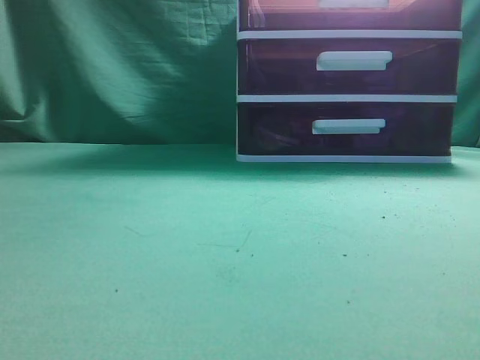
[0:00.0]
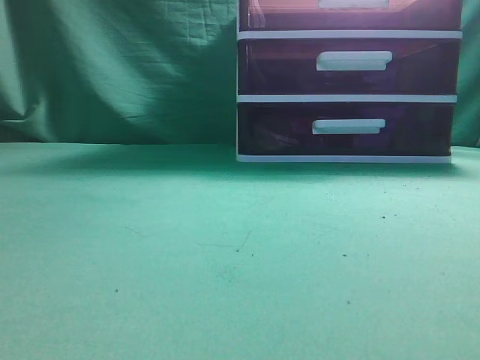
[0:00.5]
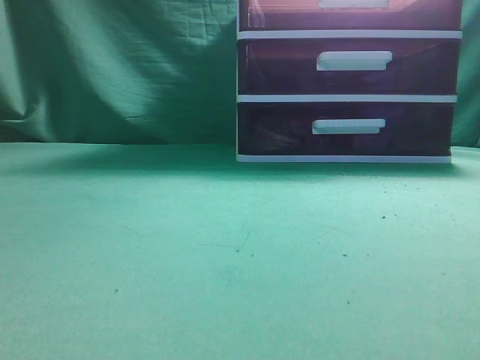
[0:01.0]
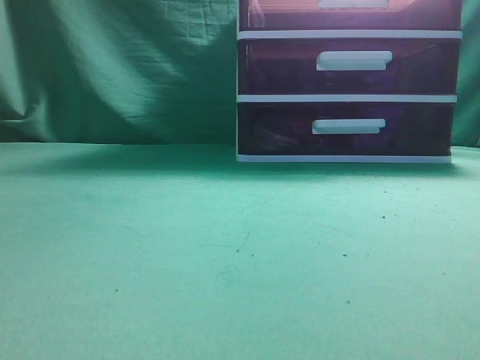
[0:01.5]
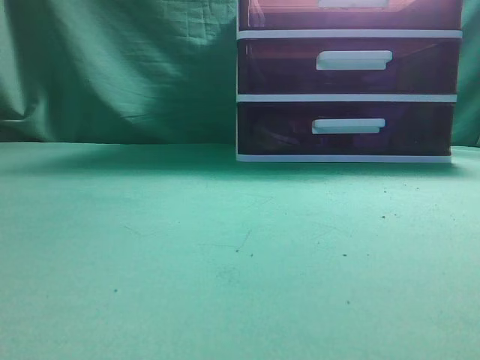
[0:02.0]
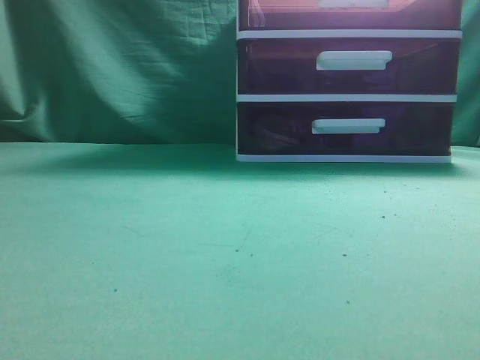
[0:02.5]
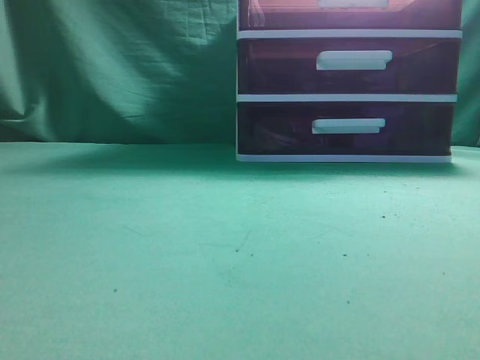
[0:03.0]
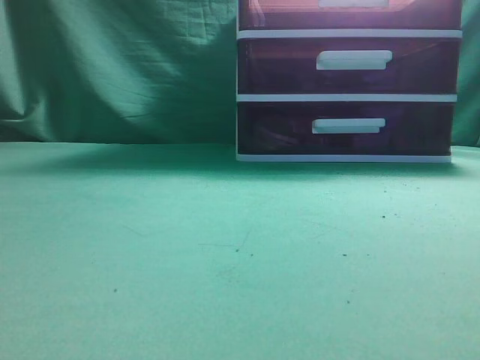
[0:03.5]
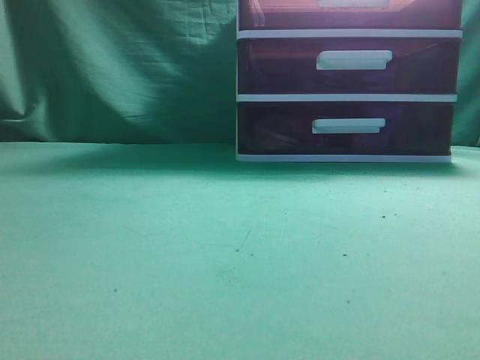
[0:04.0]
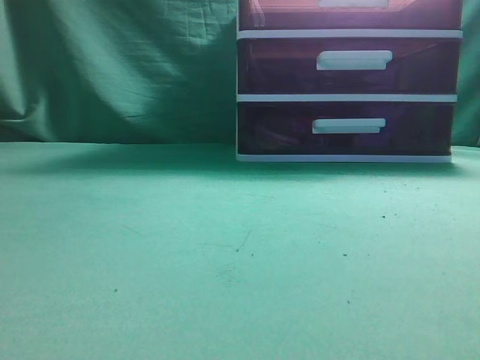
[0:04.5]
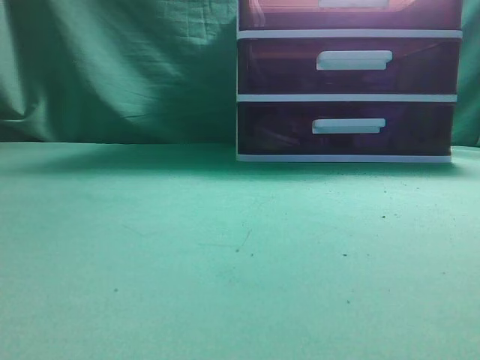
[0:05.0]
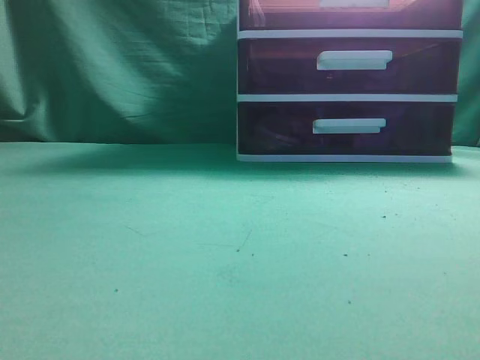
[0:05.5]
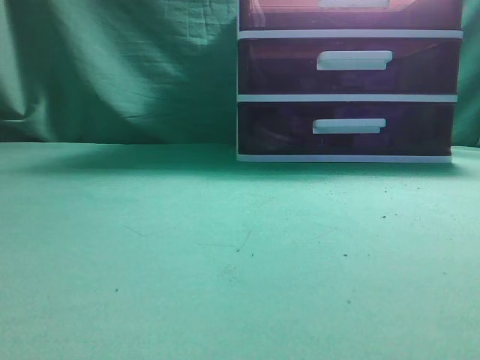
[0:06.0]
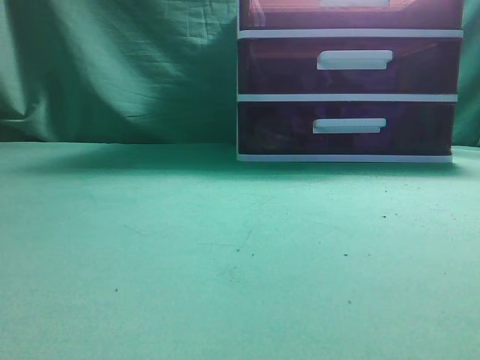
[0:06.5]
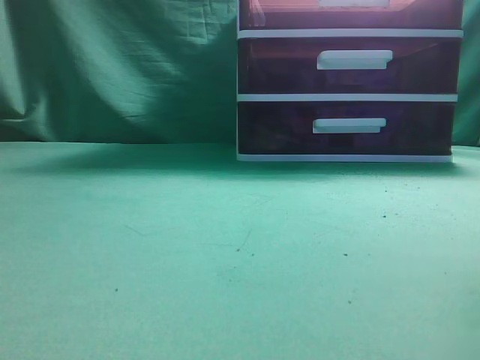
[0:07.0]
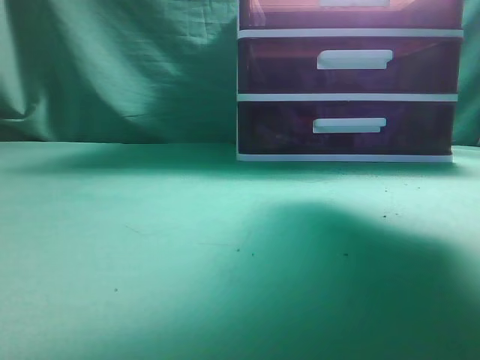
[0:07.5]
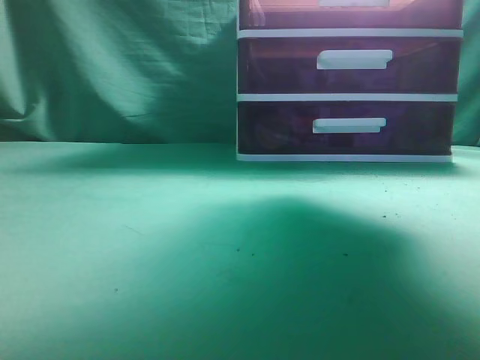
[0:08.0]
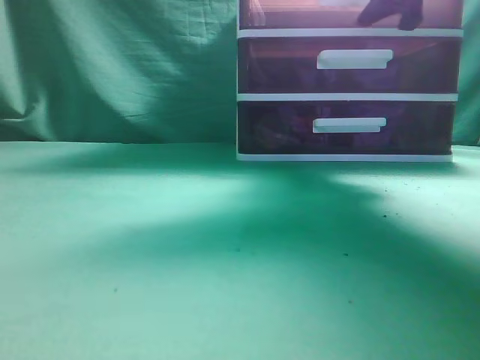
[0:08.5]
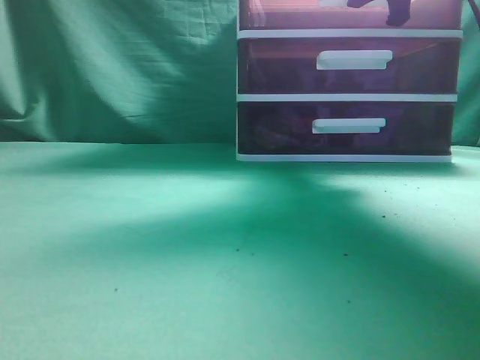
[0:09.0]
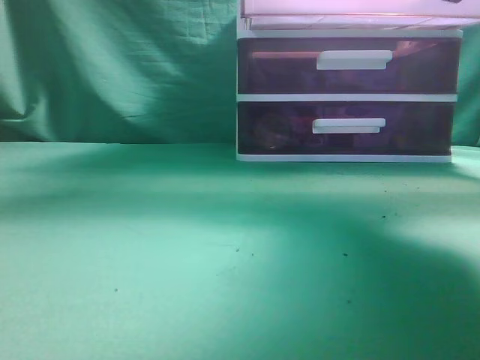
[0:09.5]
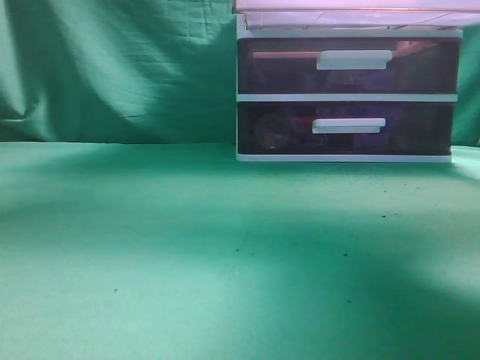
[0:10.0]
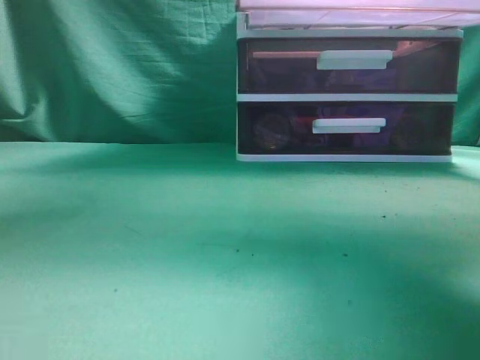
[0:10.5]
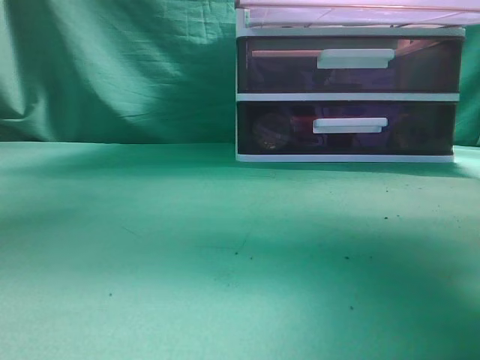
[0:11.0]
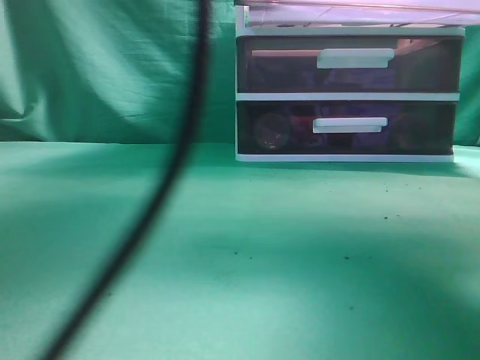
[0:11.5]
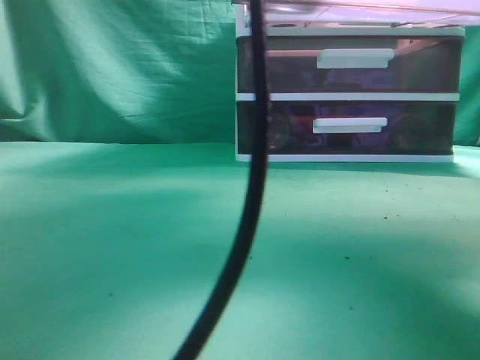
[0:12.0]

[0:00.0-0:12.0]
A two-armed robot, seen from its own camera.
Task of the whole recording: place the water bottle into the drawer.
Step, 0:00.0 to 0:10.0: Open the drawer.
0:06.0 to 0:08.0: The right gripper is displaced forward by roughly 30 cm, and opens up.
0:08.0 to 0:10.0: The right gripper travels backward by some 10 cm, and closes its fingers.
0:10.0 to 0:12.0: The left gripper goes approximately 35 cm to the right and forward.

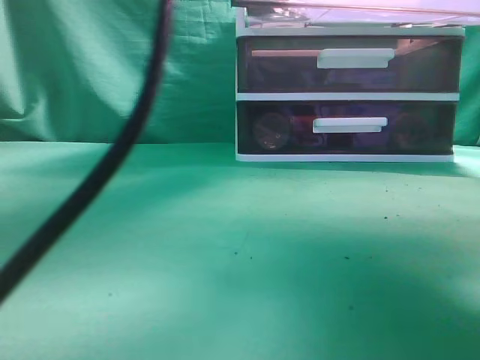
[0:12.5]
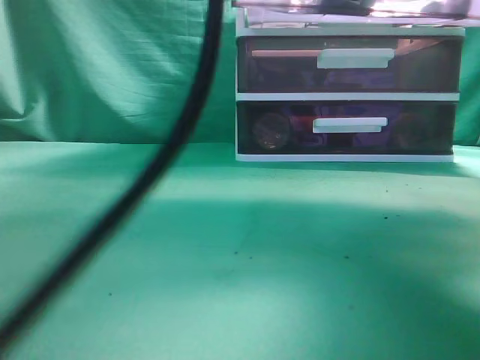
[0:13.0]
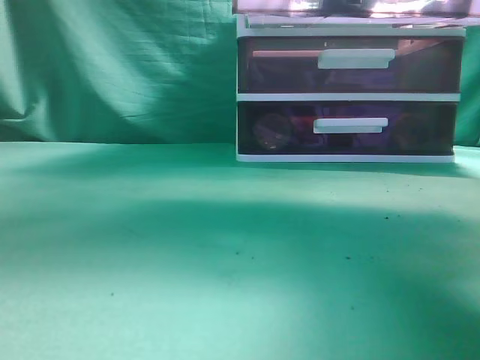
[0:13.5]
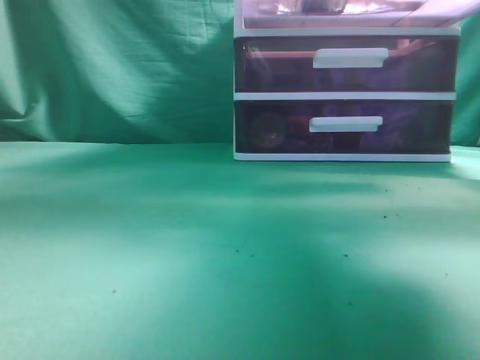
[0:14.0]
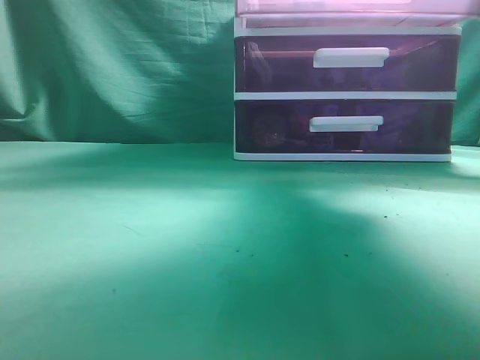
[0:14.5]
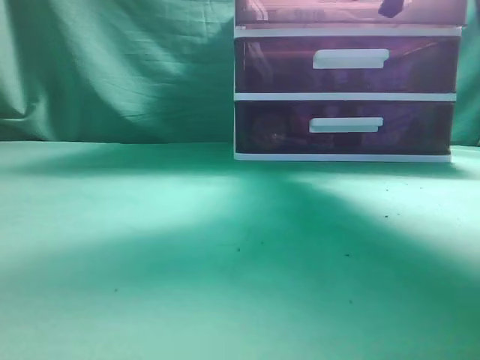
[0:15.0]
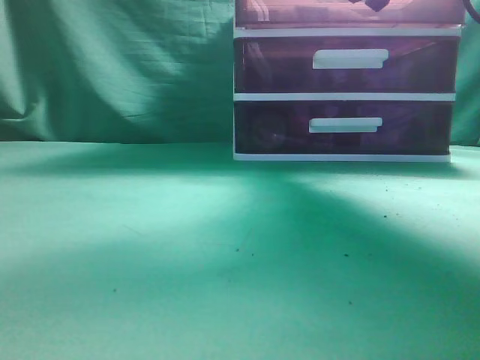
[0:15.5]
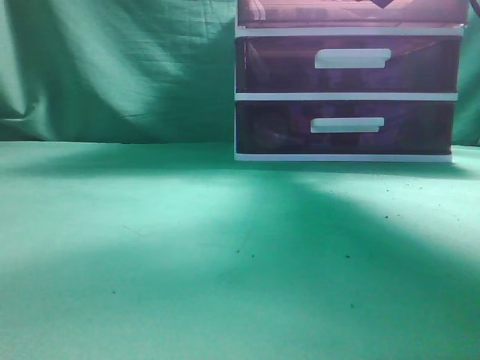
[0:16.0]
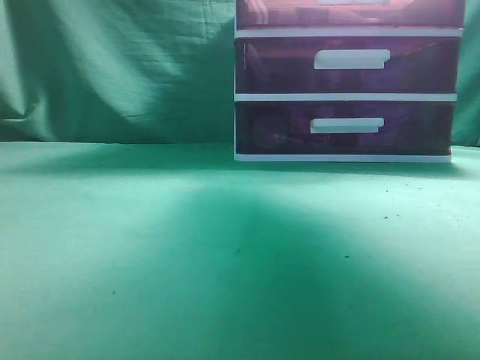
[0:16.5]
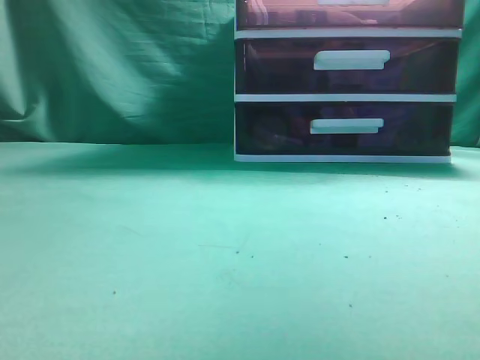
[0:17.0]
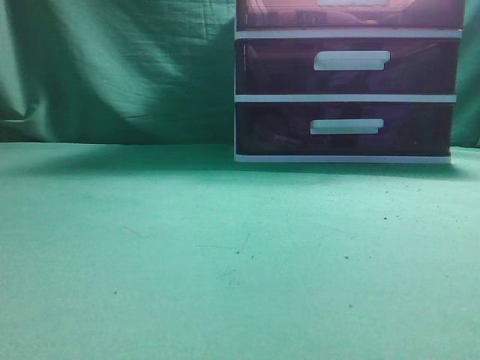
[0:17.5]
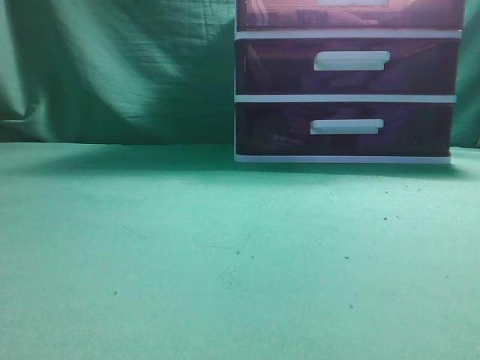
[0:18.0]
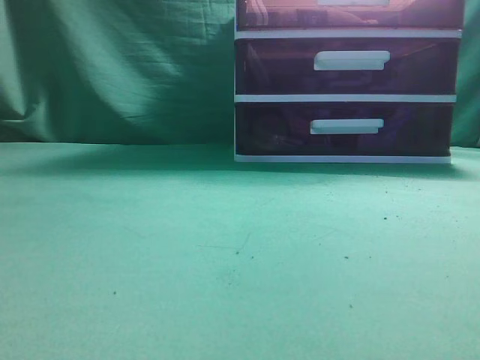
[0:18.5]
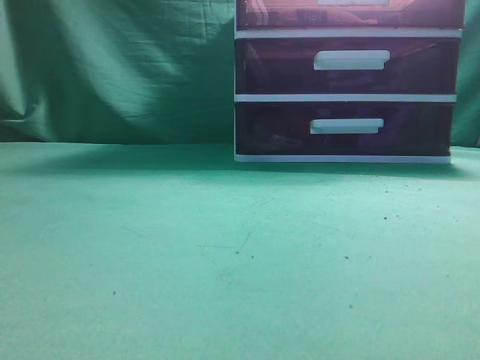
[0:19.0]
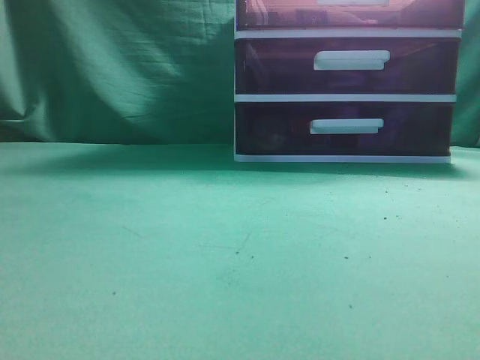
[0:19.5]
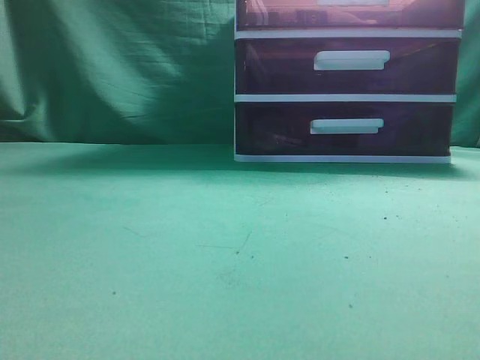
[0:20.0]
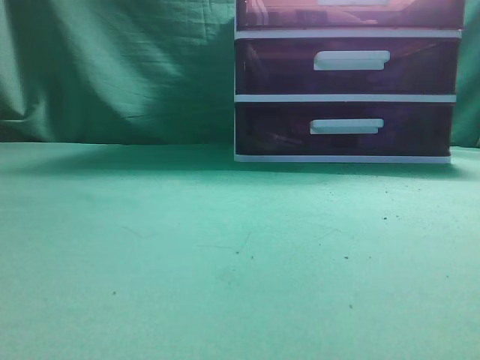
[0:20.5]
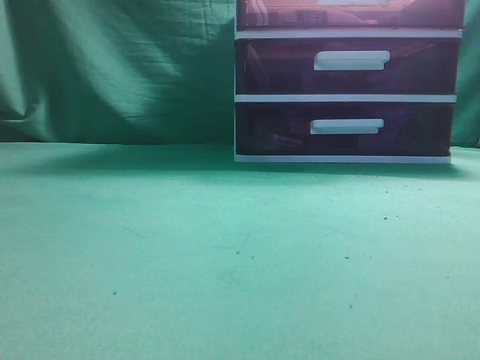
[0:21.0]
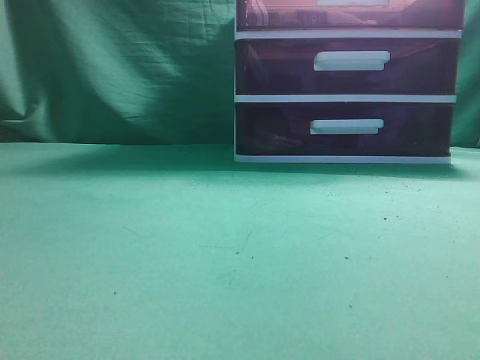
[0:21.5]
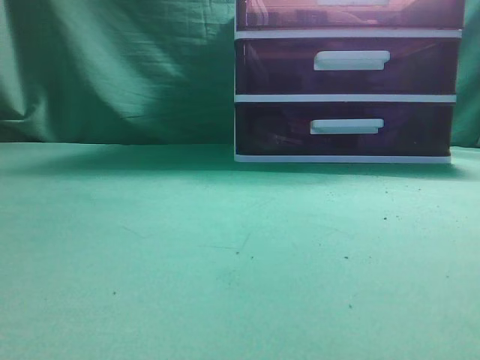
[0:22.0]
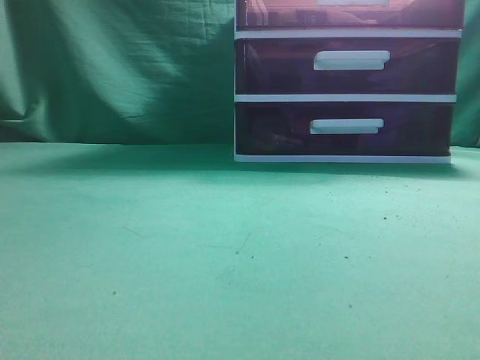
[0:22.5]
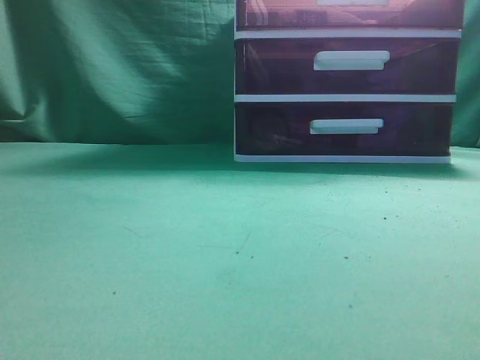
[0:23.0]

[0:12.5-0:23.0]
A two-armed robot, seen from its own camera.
Task of the whole recording: place the water bottle into the drawer.
Step, 0:13.5 to 0:16.5: Close the drawer.
0:12.5 to 0:14.5: The left gripper moves to the left and backward, roughly 25 cm, and closes its fingers; the right gripper moves forward, some 10 cm.
0:14.5 to 0:16.5: The left gripper goes roughly 10 cm backward and downward. Meanwhile the right gripper opens up.
0:16.5 to 0:19.0: The left gripper shifts roughly 20 cm to the left, backward and downward. Meanwhile the right gripper heads backward, covering approximately 40 cm, and closes up.
